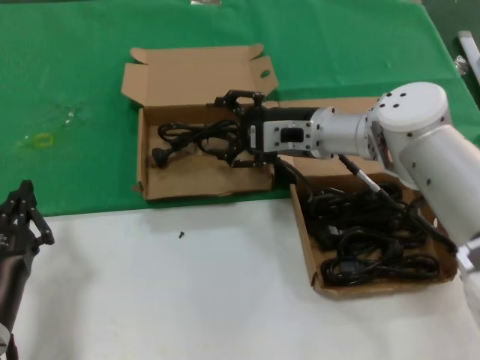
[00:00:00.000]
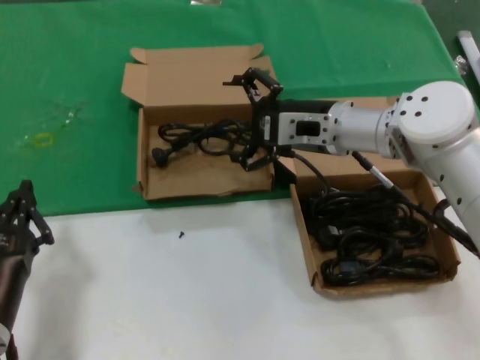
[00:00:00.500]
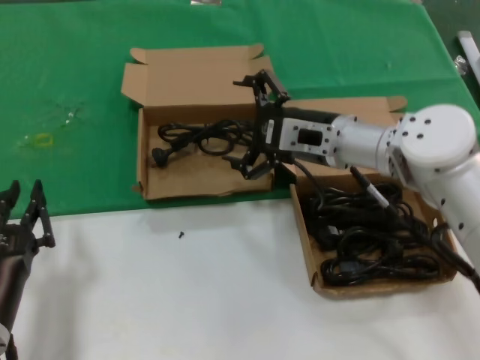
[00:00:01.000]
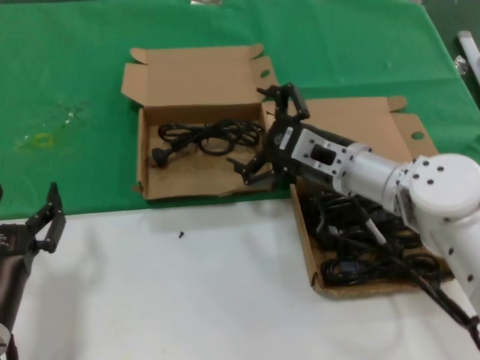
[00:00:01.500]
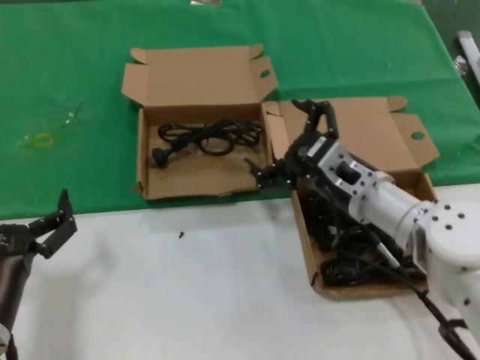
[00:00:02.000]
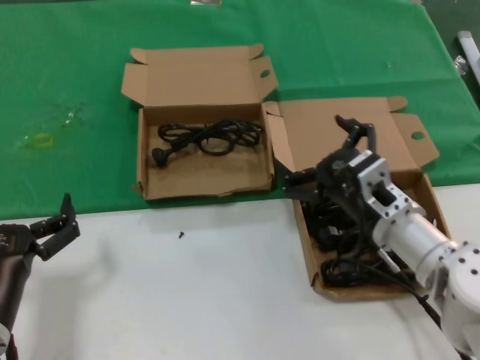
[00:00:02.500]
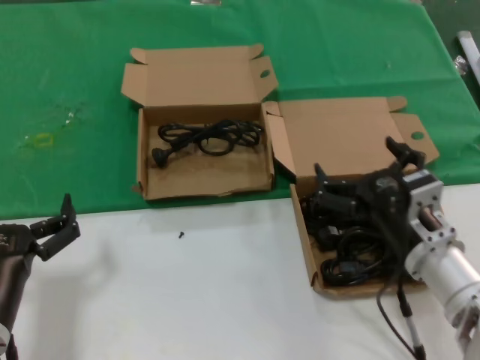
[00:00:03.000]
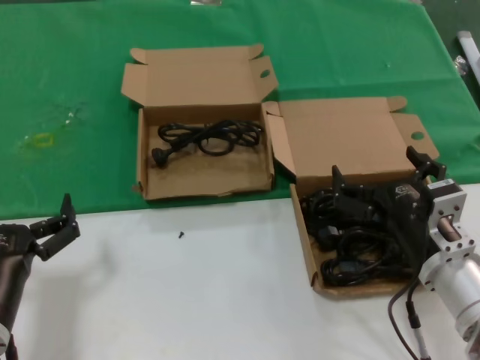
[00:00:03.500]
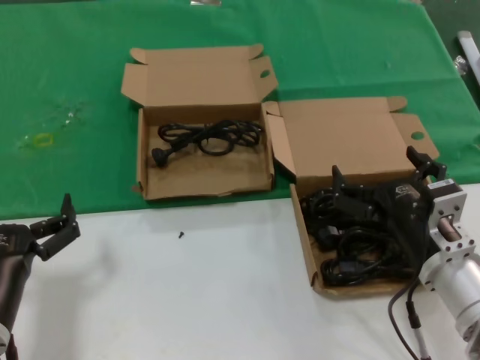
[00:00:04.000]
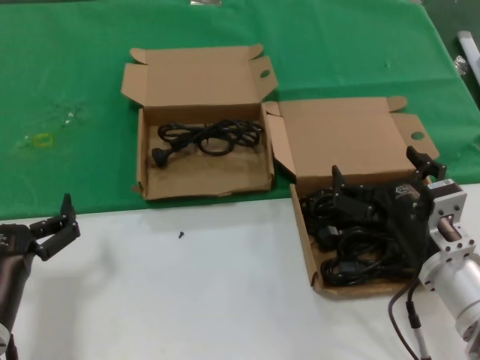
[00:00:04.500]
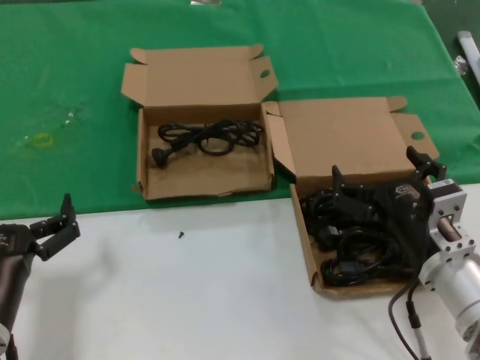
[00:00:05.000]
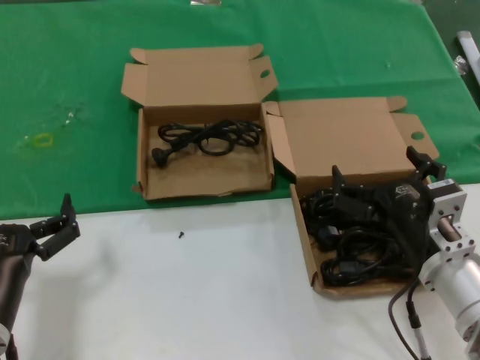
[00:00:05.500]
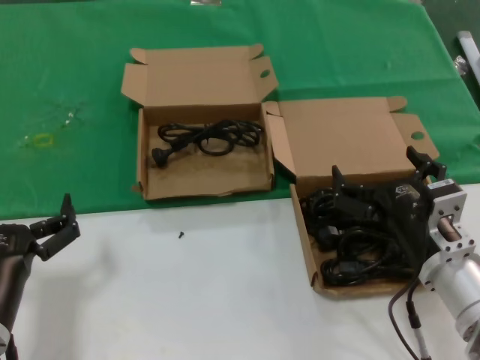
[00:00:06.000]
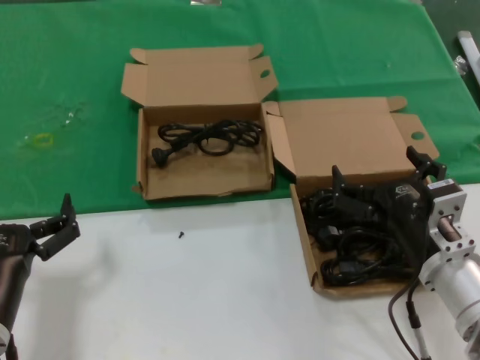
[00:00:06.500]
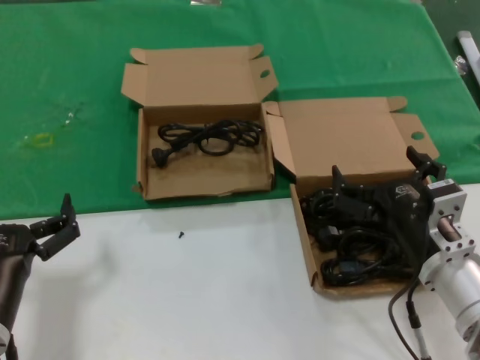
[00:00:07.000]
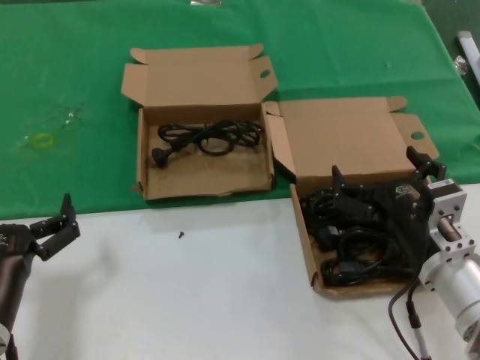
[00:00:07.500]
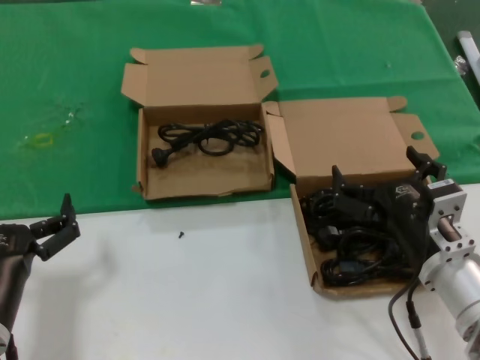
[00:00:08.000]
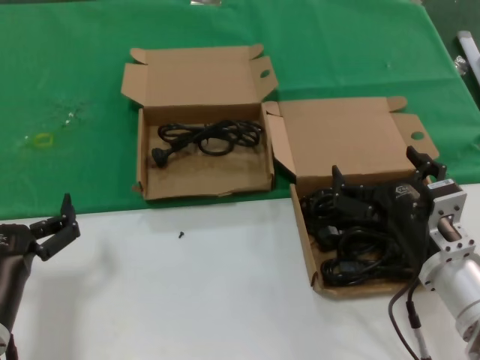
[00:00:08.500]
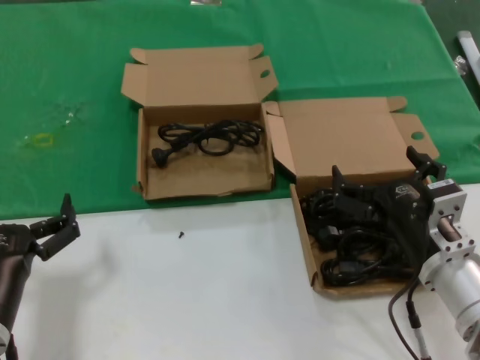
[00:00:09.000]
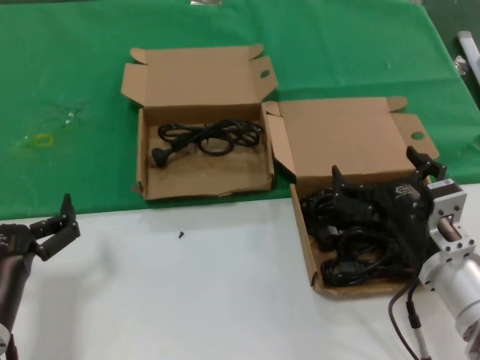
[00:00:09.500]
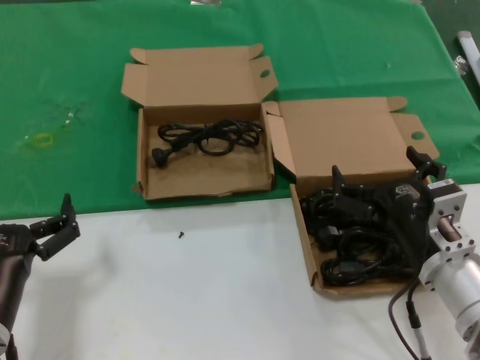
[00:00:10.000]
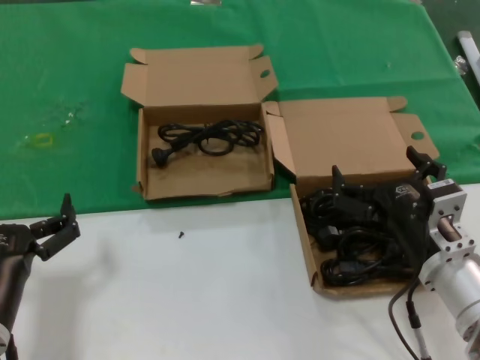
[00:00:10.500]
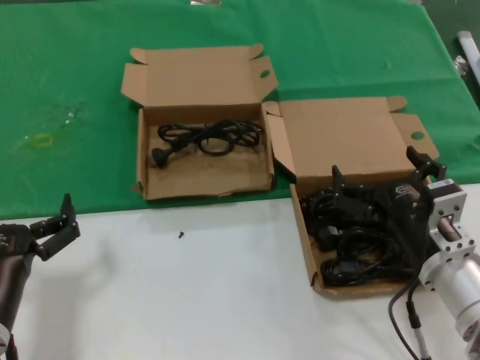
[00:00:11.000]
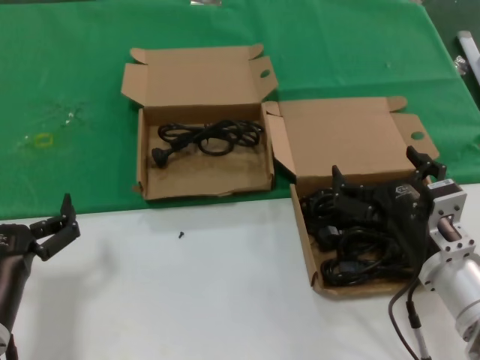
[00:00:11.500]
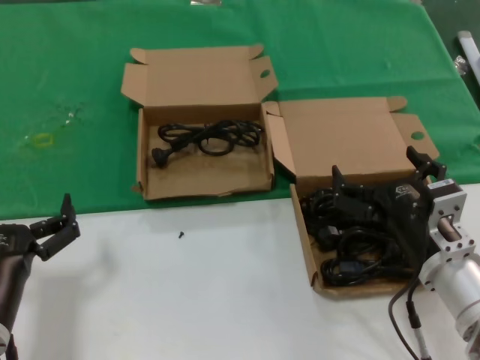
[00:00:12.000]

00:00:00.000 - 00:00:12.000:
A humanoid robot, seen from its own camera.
Task of the whole recording: take the parts from the box containing them and put them into an empty box.
00:00:00.000 - 00:00:02.000: The right hand goes approximately 15 cm backward and downward.
00:00:02.000 - 00:00:04.000: The right hand shifts about 10 cm backward.
00:00:04.000 - 00:00:12.000: The two hands keep their place.

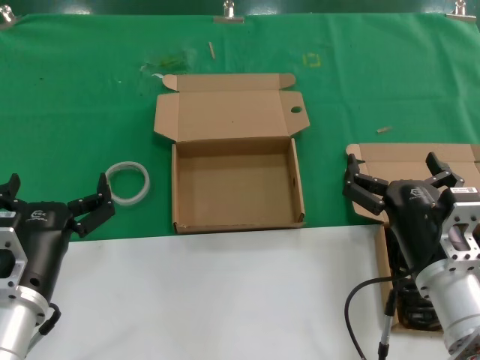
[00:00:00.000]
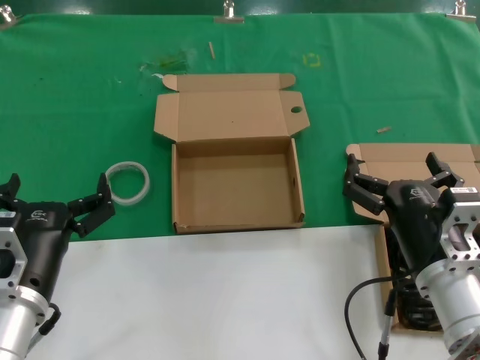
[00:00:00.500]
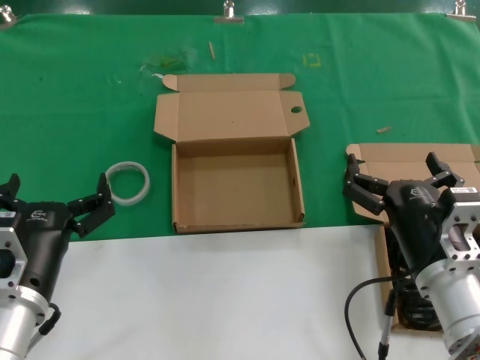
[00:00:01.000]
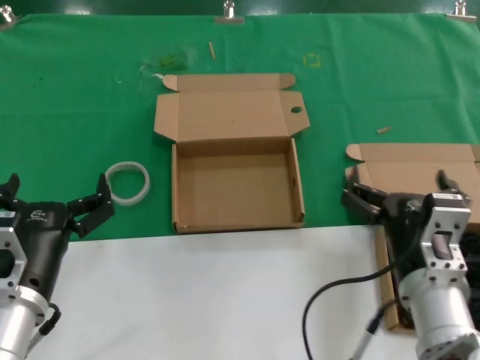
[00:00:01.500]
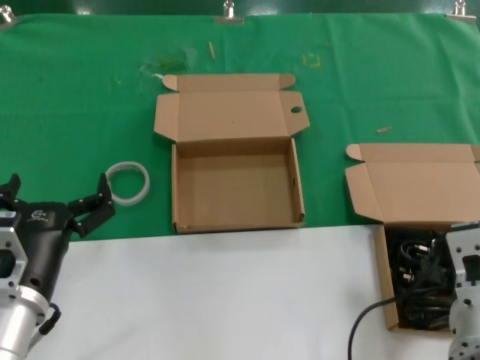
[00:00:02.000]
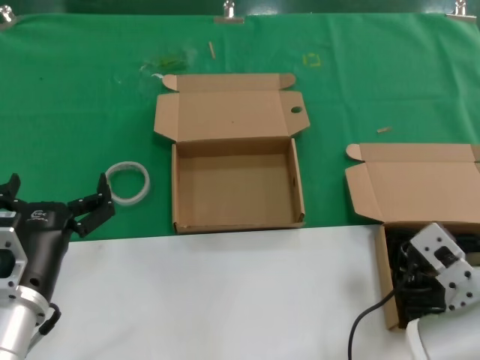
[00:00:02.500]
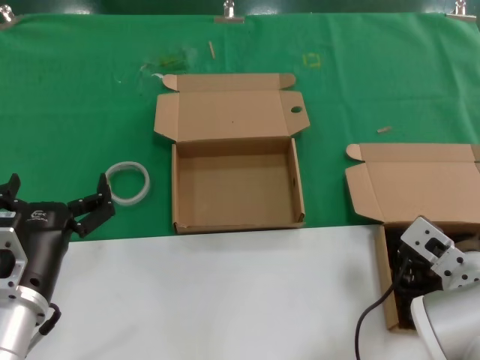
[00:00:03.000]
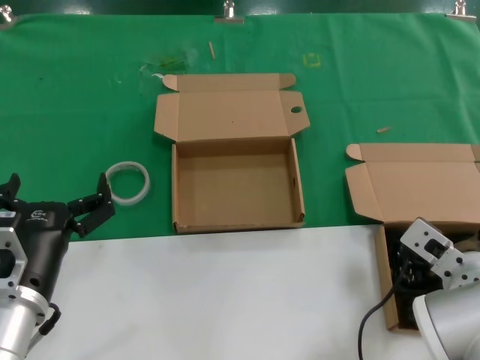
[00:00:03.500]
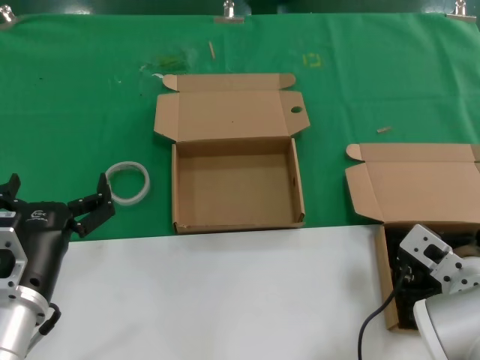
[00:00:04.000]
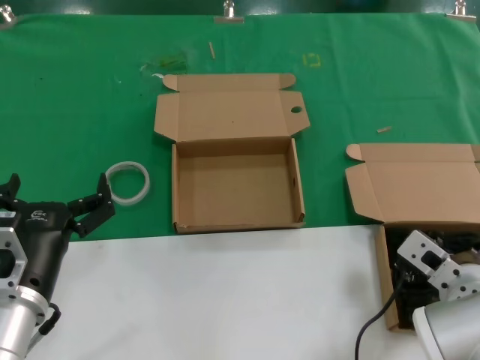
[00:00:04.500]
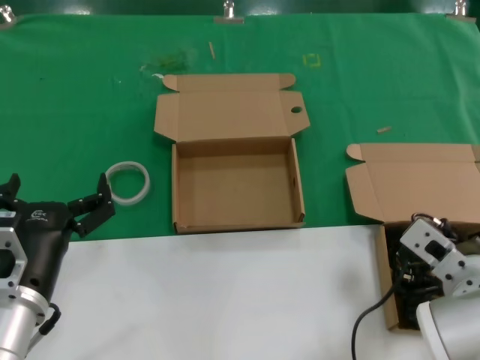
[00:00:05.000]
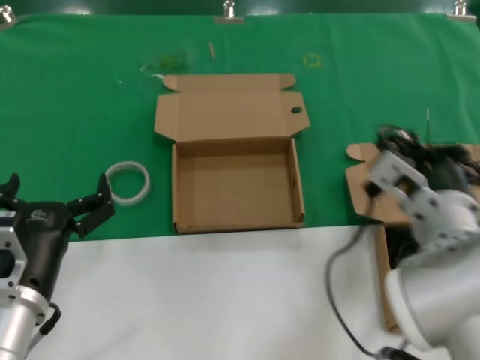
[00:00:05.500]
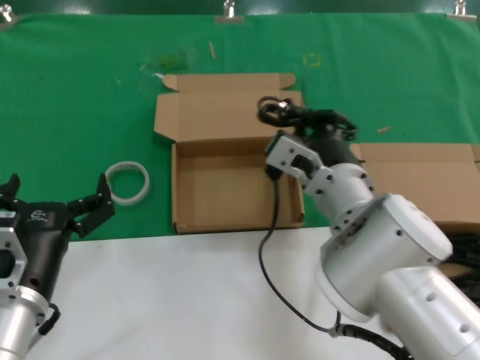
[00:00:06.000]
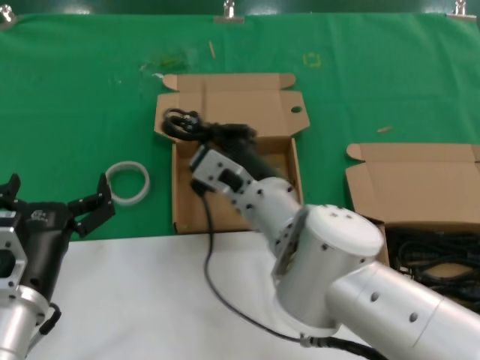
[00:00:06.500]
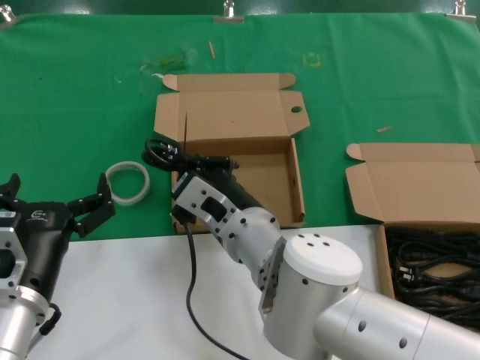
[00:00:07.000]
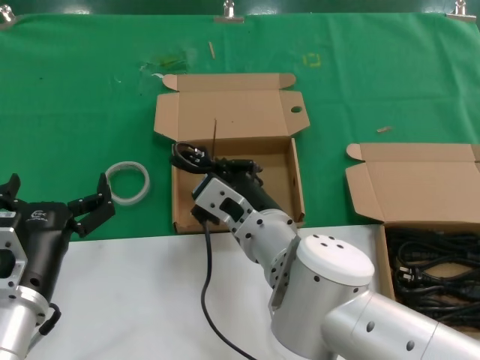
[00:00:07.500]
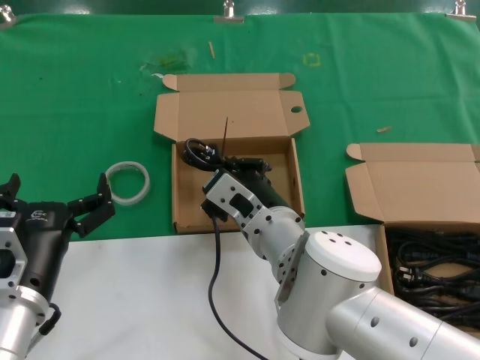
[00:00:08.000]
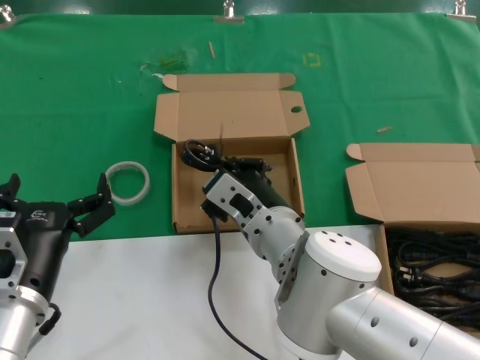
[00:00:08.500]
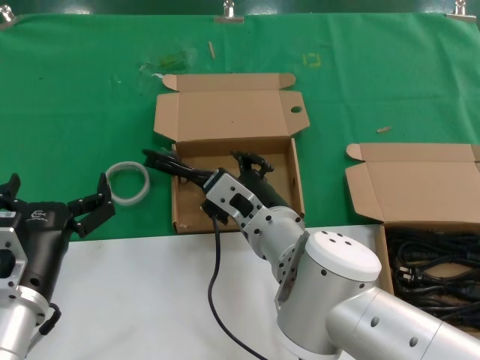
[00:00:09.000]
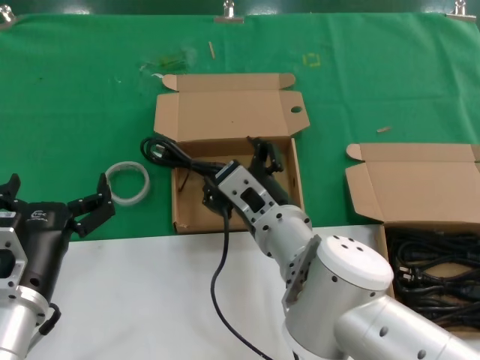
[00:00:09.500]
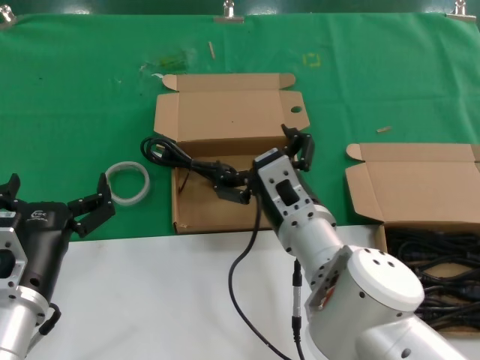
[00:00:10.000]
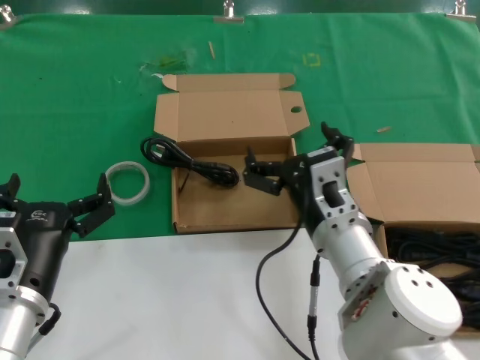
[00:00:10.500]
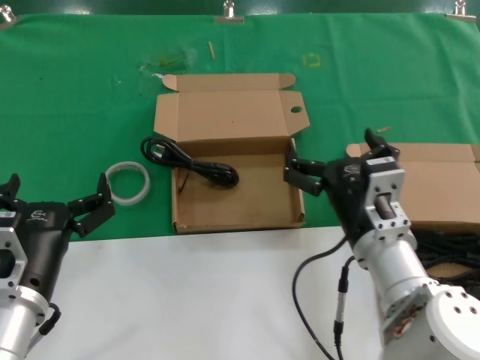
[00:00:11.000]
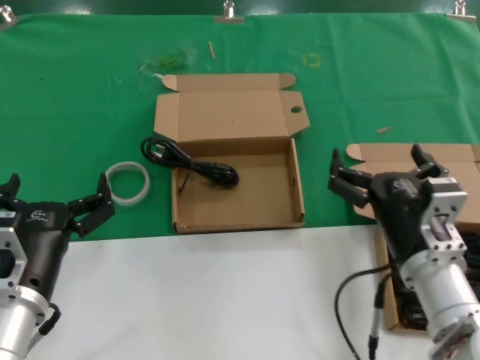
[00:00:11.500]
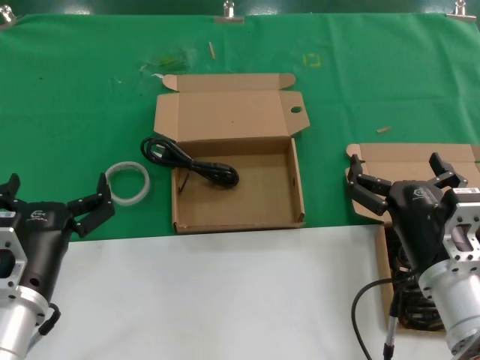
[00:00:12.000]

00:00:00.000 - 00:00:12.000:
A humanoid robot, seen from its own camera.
Task of the whole recording: take the parts from the box containing them and put them into an empty box.
Step, 00:00:00.000 - 00:00:05.000: Grasp the data cable.
Step, 00:00:05.500 - 00:00:09.000: Place the data cable in the another box.
00:00:02.000 - 00:00:04.000: The right hand moves forward, approximately 5 cm.
00:00:04.000 - 00:00:06.000: The right hand travels to the left, forward and upward by some 15 cm.
00:00:06.000 - 00:00:08.000: The right hand heads to the left, covering roughly 5 cm.
00:00:10.000 - 00:00:12.000: The right hand is displaced to the right and backward by approximately 15 cm.

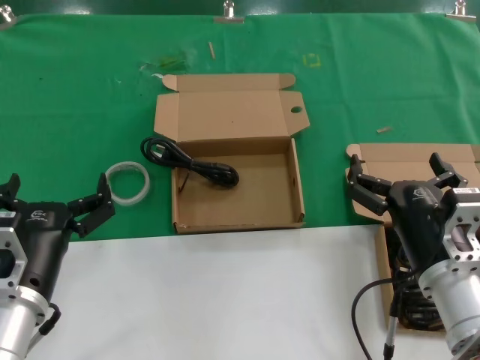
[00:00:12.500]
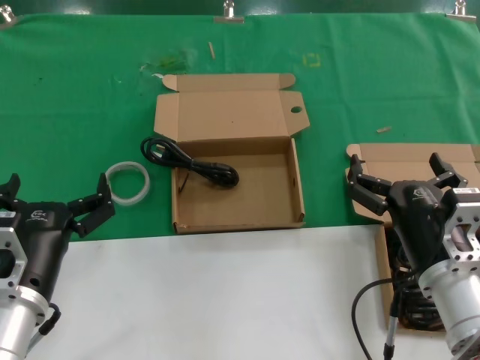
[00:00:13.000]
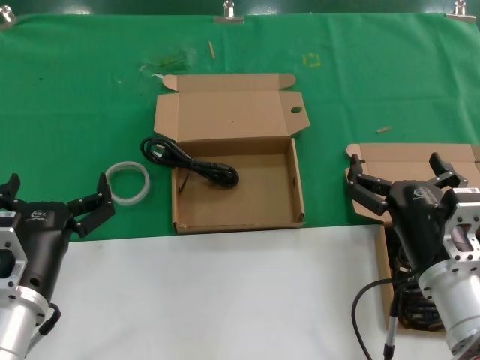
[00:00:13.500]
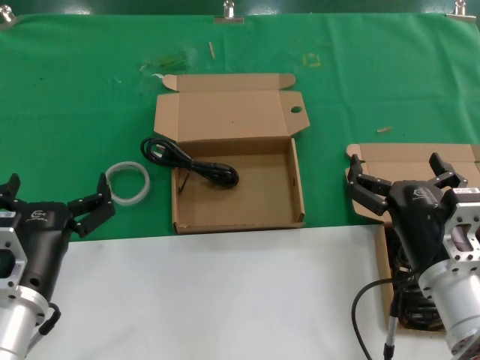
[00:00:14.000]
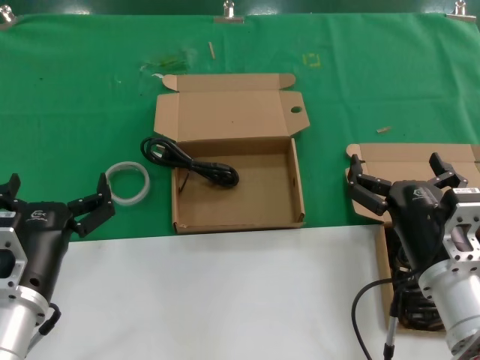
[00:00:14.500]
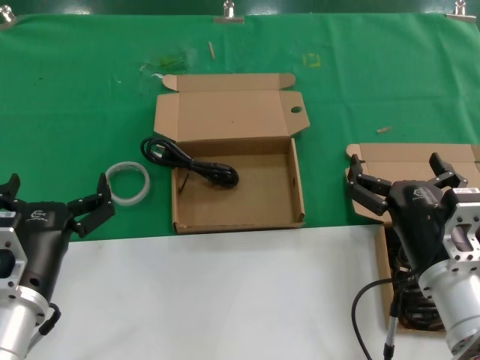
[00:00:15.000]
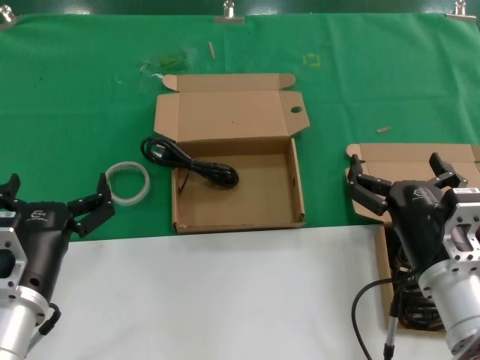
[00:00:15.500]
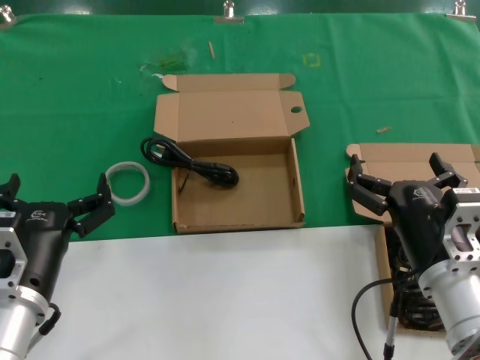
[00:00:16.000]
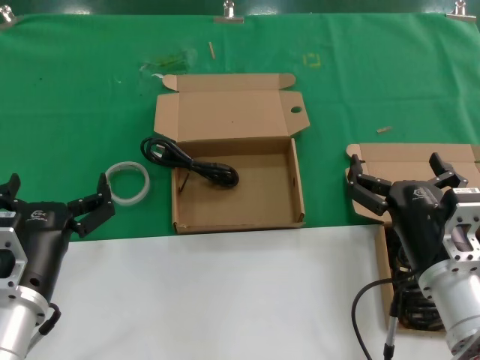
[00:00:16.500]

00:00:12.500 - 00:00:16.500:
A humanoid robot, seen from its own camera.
Task of the whole recording: take the parts from the box containing them and put them into an empty box.
00:00:12.500 - 00:00:16.500: Both hands stay about where they are.
